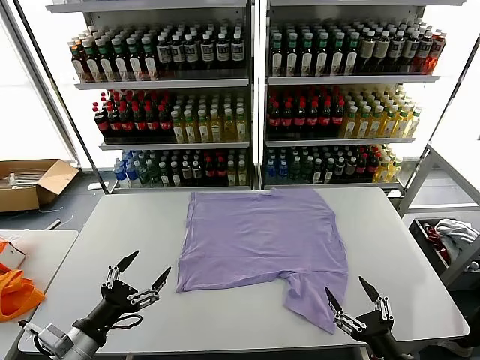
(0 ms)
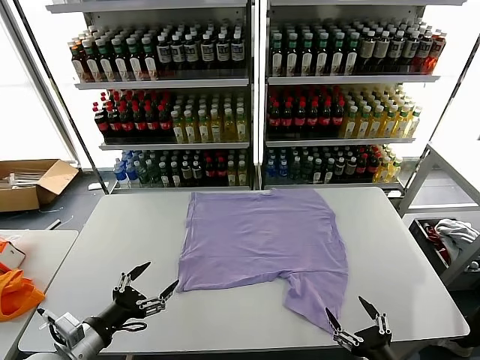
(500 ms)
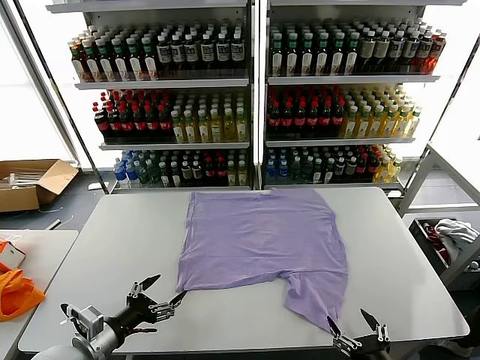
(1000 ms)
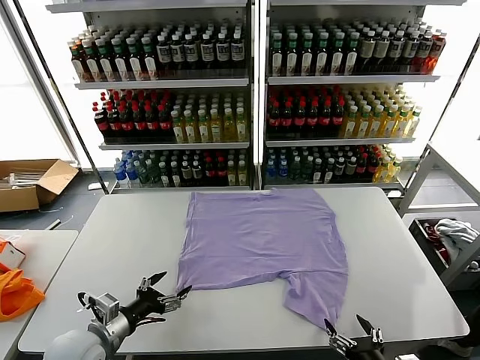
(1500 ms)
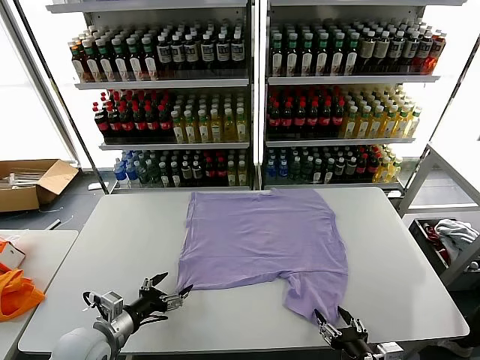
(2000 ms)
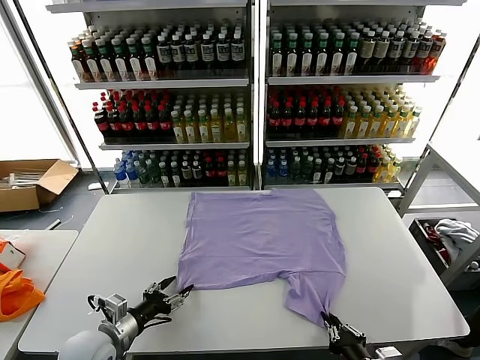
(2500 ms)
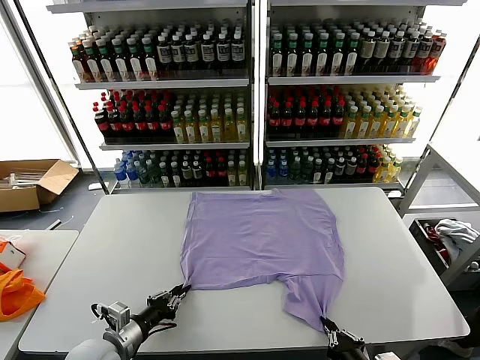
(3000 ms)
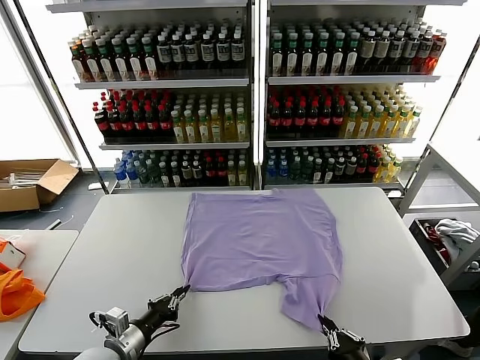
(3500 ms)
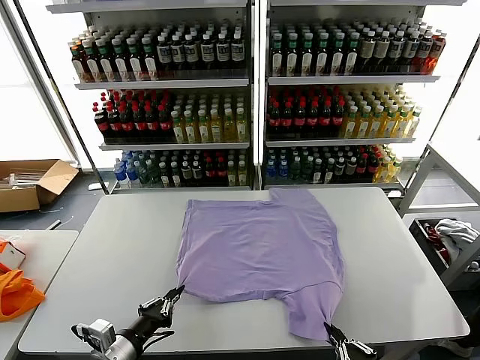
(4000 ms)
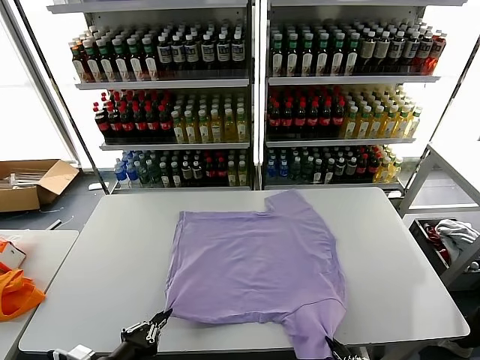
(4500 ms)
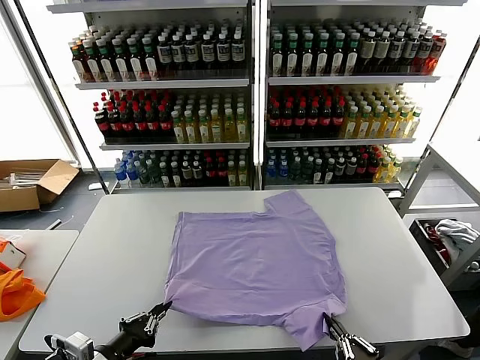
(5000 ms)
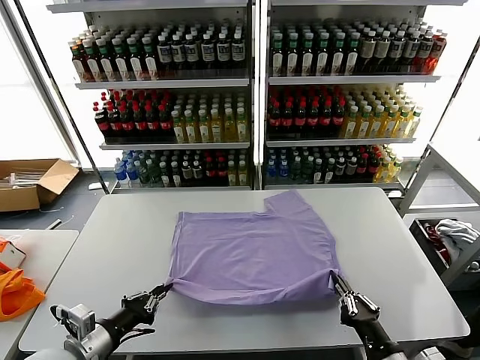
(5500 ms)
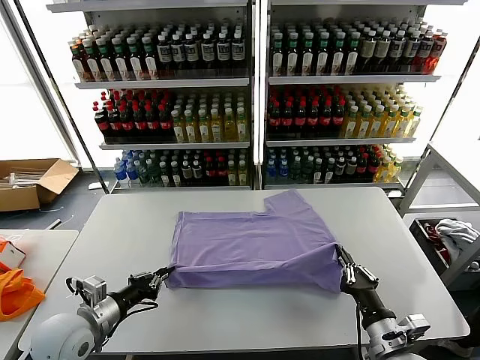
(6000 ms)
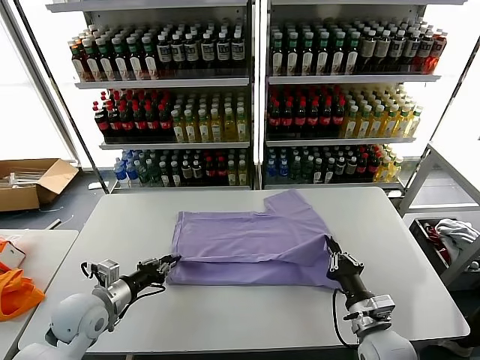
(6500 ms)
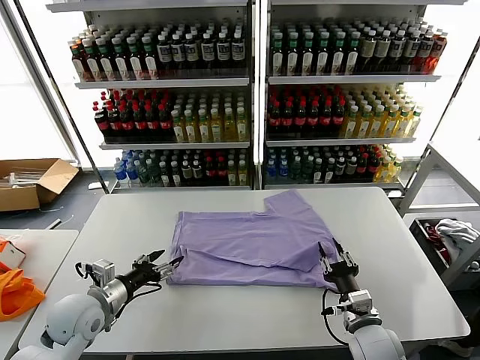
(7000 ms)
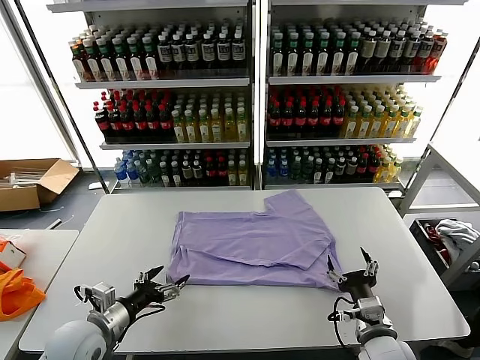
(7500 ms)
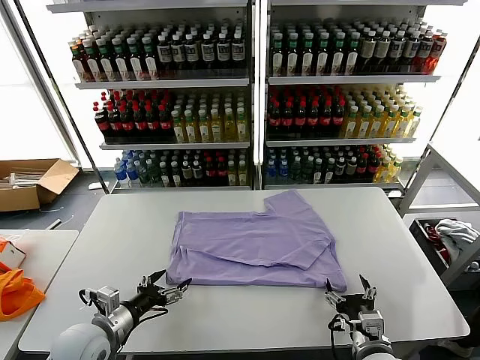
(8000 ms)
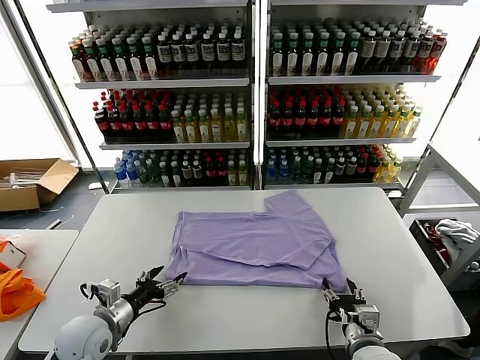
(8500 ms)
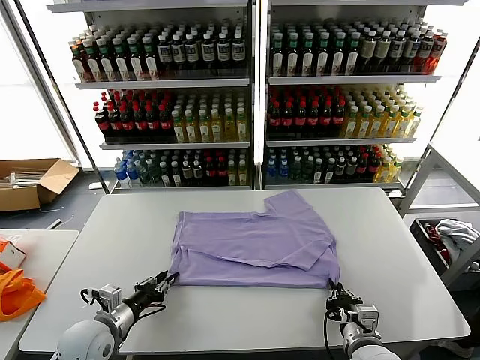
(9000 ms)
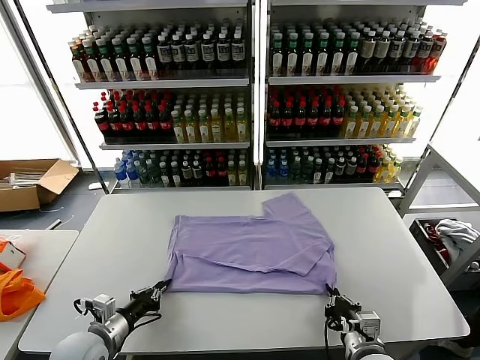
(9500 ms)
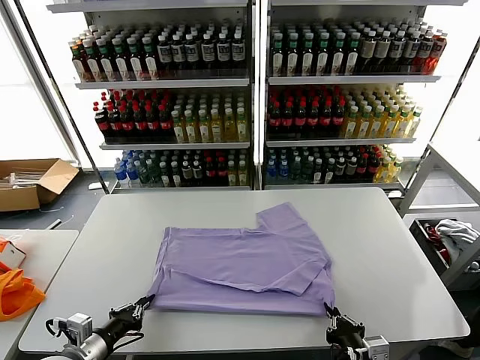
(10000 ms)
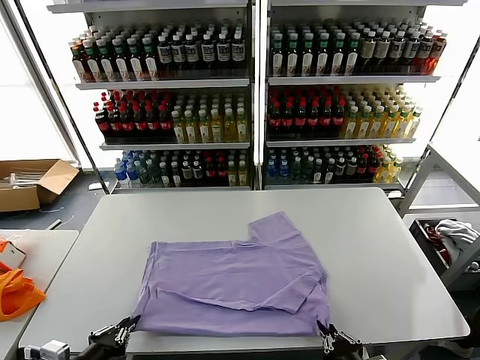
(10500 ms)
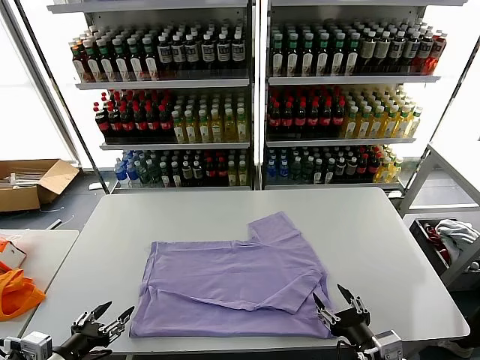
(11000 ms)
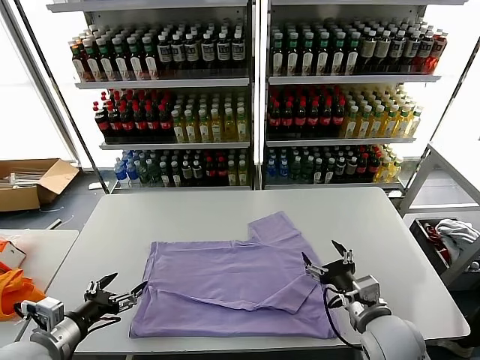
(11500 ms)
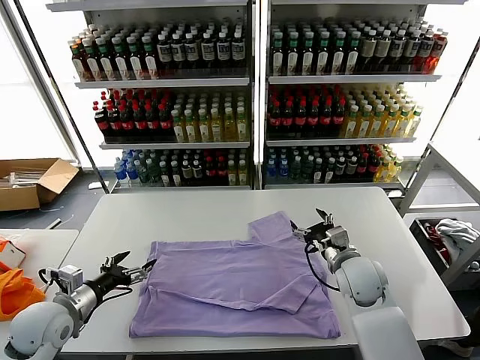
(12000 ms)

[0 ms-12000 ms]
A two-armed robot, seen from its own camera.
Task of the whole recording: fold and organize the clothes.
Step, 0 ms to 3000 ms: use both grippers simultaneously to clamp the lower edge of the clothing fabric.
Step, 3500 ms to 7000 ms: use both grippers to drag the lower edge of the fabric forward and fold it over the upper edge.
Step, 7500 ms to 10500 ms: Drag the clothes downward with both gripper.
2000 ms to 4000 ms: The two grippers go roughly 10 cm backward. The left gripper closes; the right gripper closes.
4000 ms to 6000 ms: The left gripper goes about 10 cm forward and to the left, while the right gripper shifts roughly 15 cm forward.
6000 ms to 8000 ms: The right gripper opens its fingers. Meanwhile the left gripper opens up.
8000 ms to 10000 ms: The two grippers go some 5 cm backward. The right gripper closes up. The left gripper closes.
10000 ms to 12000 ms: The left gripper heads forward, covering approximately 10 cm, and opens its fingers. The right gripper moves forward, roughly 25 cm, and opens up.

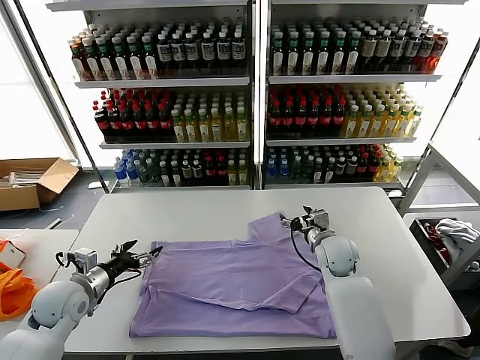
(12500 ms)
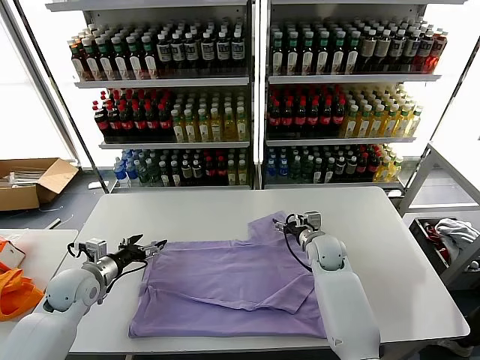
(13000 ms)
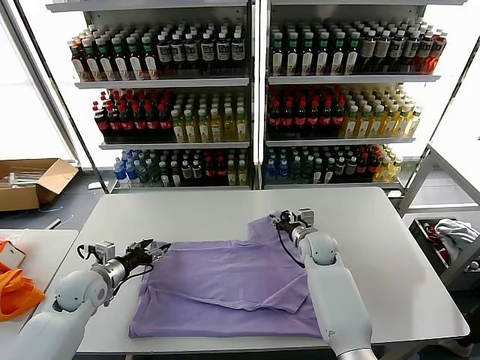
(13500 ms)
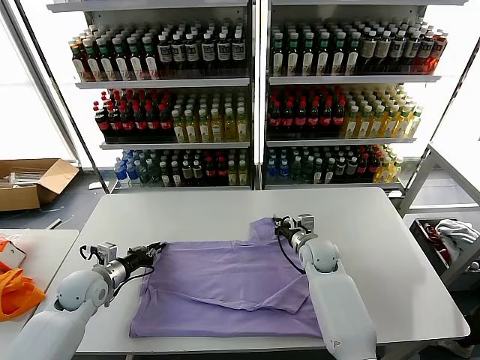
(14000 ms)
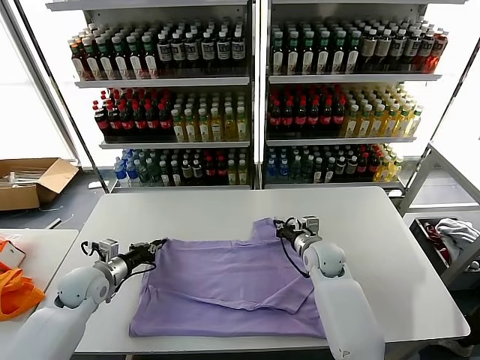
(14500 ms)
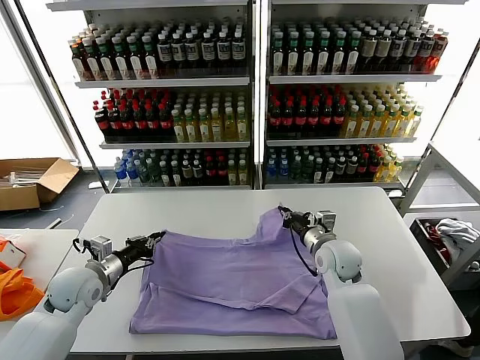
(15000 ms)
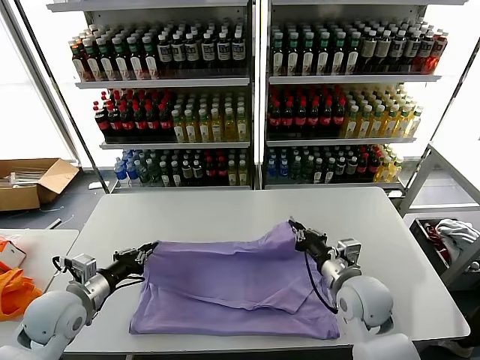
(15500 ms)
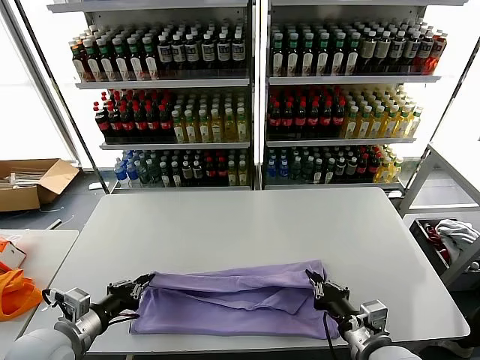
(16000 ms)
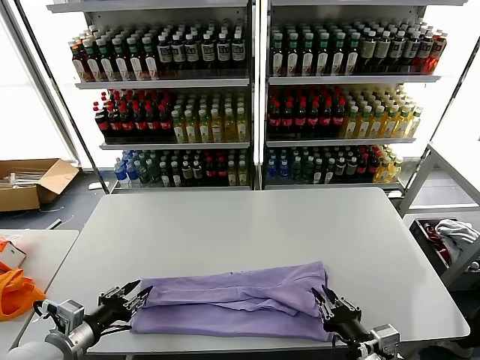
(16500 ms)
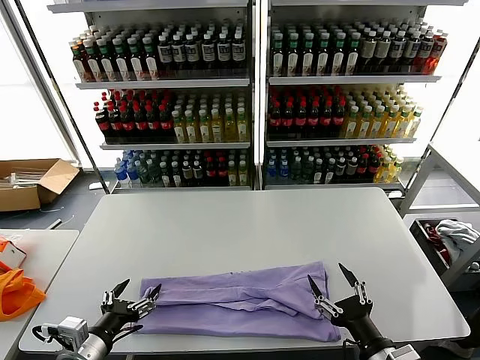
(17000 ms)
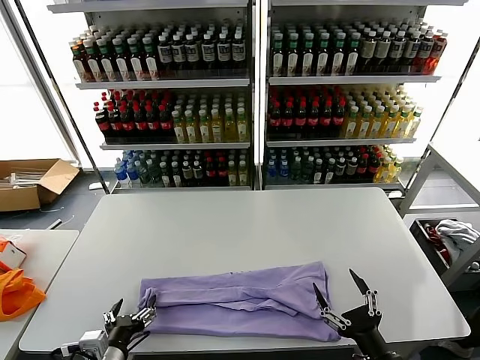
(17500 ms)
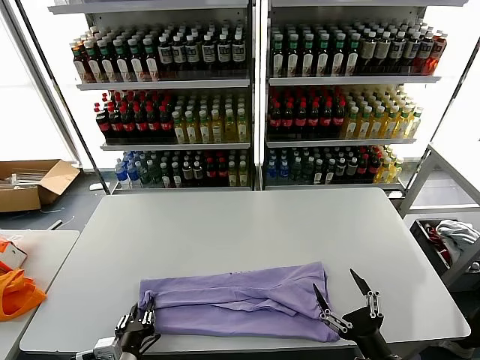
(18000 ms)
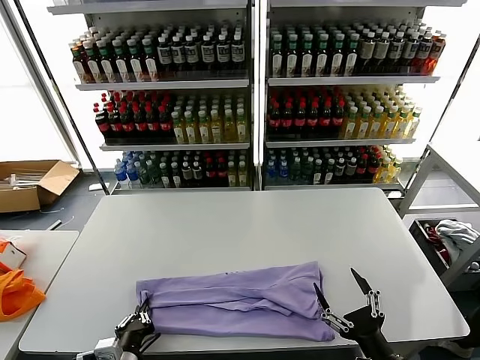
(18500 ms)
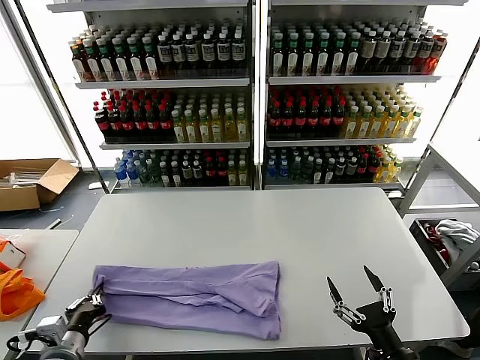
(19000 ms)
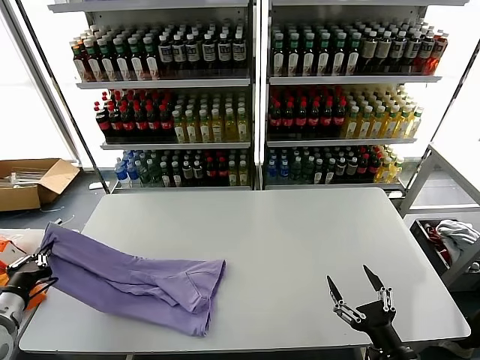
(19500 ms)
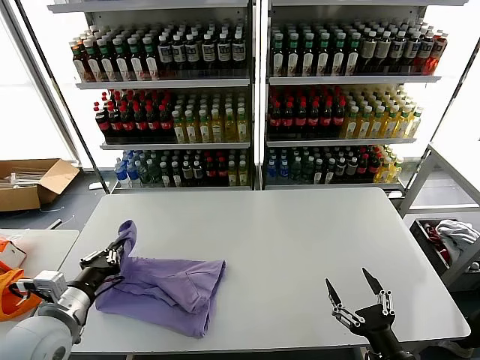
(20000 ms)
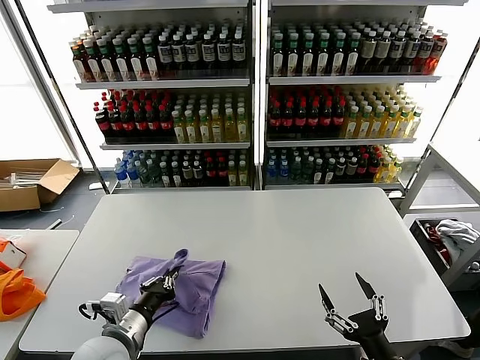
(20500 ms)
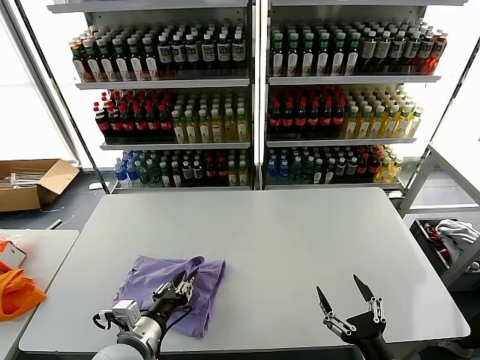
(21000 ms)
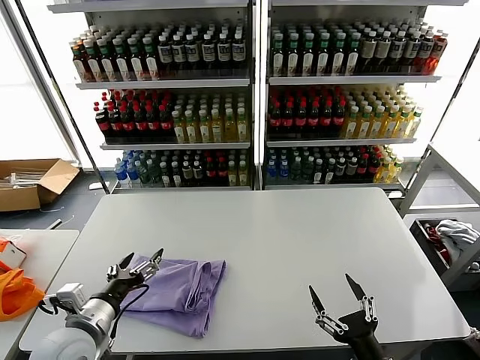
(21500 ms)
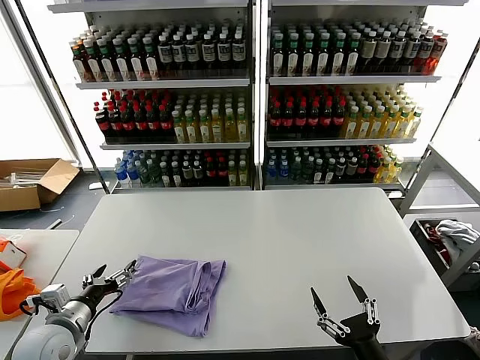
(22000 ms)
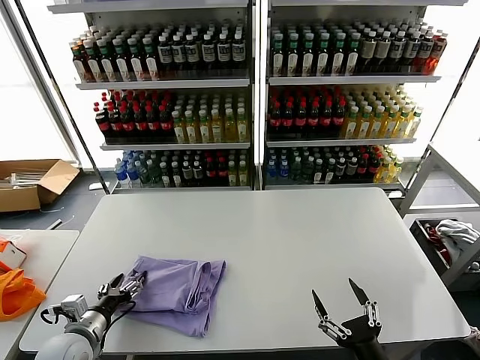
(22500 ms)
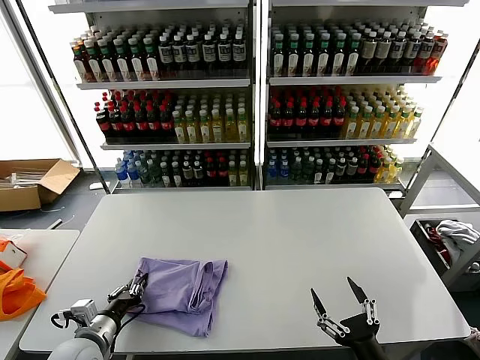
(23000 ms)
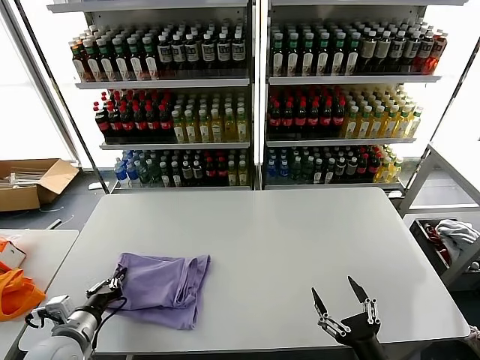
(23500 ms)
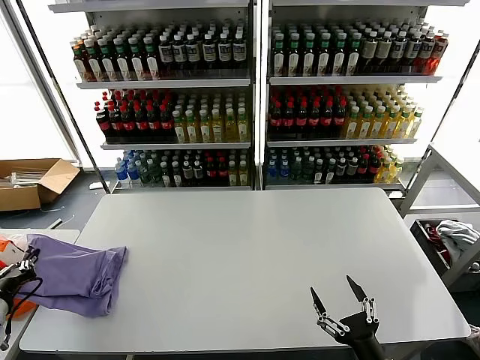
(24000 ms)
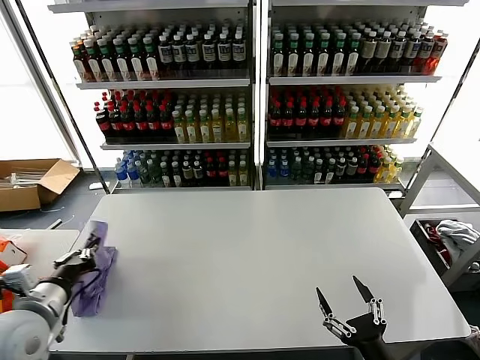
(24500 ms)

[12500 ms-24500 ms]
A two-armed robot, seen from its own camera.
Task of the whole recording: fold and organize the clothes.
Step, 14500 ms to 16500 ms: use both grippers to drag the upper edge of the fabric backward and fold it over the lower edge.
Step, 17000 ms to 18000 ms: use the left gripper to clamp the left edge of the fabric.
Step, 18500 ms to 21000 ms: use the left gripper to drag the left edge of the fabric to the left and folds it over the right edge.
12500 ms to 14500 ms: The left gripper moves about 5 cm, and closes. The right gripper closes its fingers.
14500 ms to 16500 ms: The right gripper shifts roughly 30 cm backward; the left gripper is displaced backward by some 20 cm, and opens up.
16500 ms to 18500 ms: The left gripper heads to the right and downward, covering roughly 15 cm, and closes up, while the right gripper ends up about 5 cm from where it was, and opens.
18500 ms to 20500 ms: The left gripper travels upward and forward by approximately 10 cm, and reaches some 20 cm to the left, then returns.
20500 ms to 22500 ms: The left gripper goes about 10 cm to the left and downward, and opens its fingers.
22500 ms to 24500 ms: The left gripper is displaced upward by some 15 cm, reaches approximately 10 cm to the left, then returns, and closes.

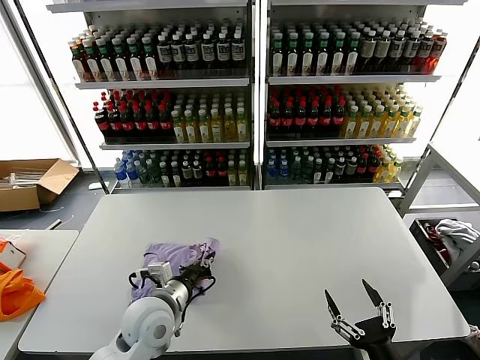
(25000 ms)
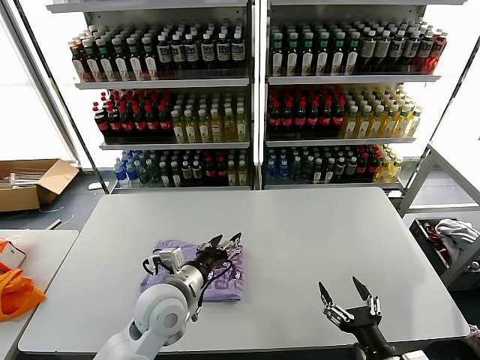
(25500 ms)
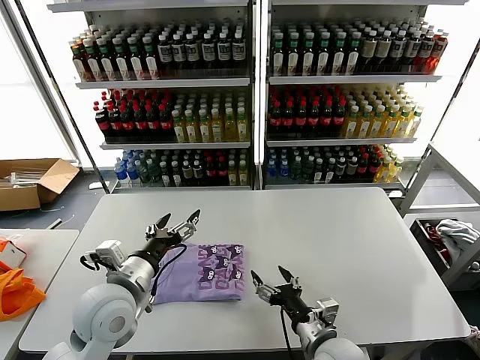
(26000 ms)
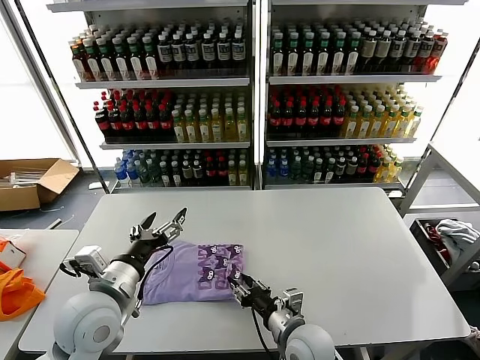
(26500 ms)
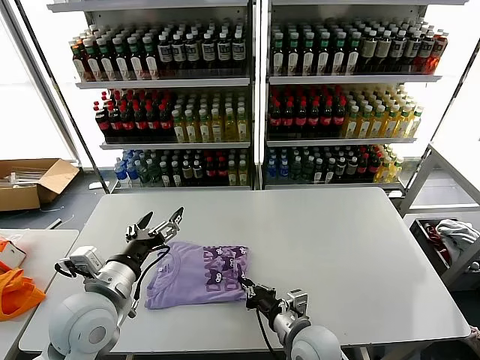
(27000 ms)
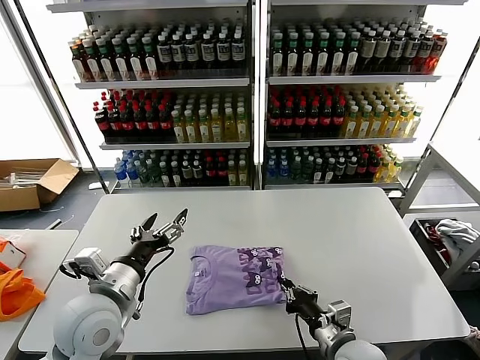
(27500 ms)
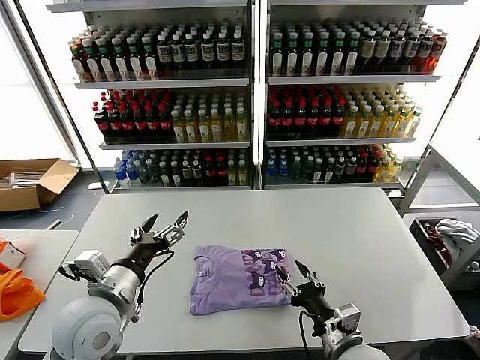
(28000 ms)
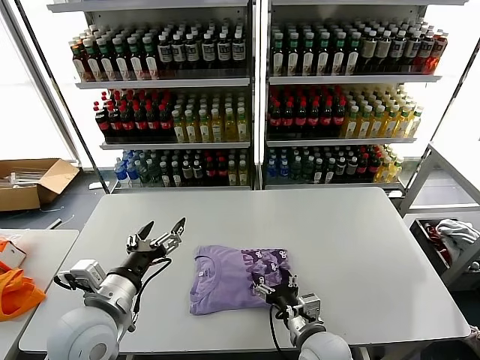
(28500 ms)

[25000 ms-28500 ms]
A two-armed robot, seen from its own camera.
Task of the whole recording: fold and organize the clothes.
25000 ms to 27000 ms: The left gripper goes roughly 10 cm upward and to the left, and opens. The right gripper travels forward and to the left by some 25 cm, and closes its fingers.
27000 ms to 28500 ms: The right gripper moves roughly 10 cm to the right and comes back, and opens its fingers.
